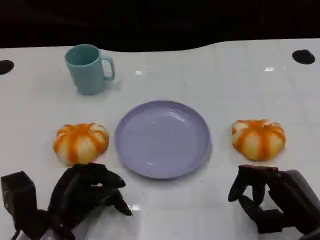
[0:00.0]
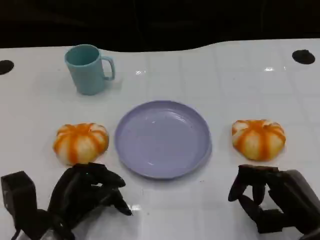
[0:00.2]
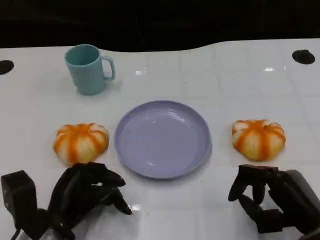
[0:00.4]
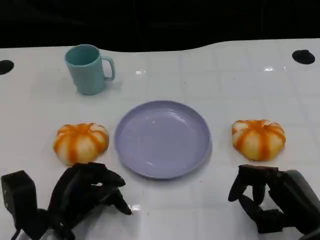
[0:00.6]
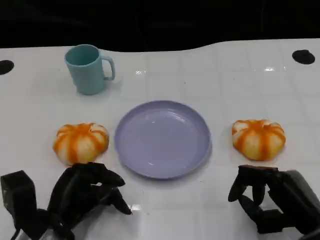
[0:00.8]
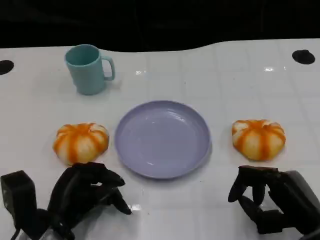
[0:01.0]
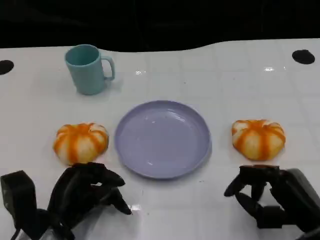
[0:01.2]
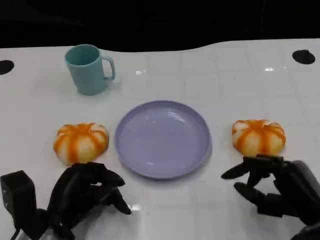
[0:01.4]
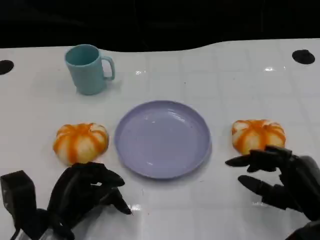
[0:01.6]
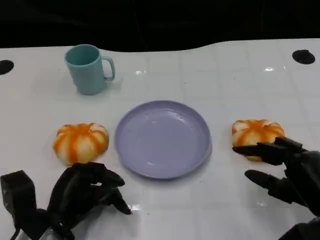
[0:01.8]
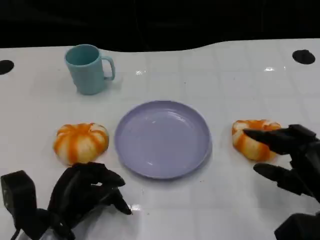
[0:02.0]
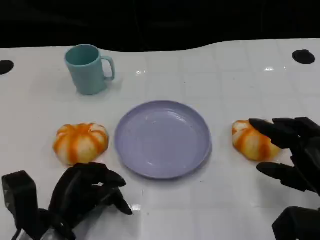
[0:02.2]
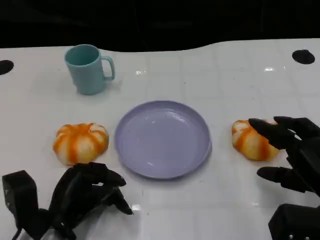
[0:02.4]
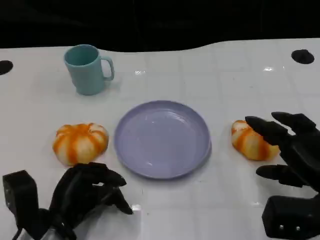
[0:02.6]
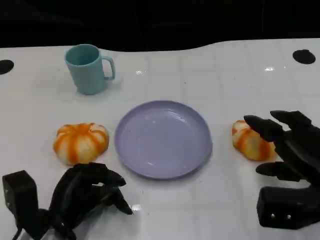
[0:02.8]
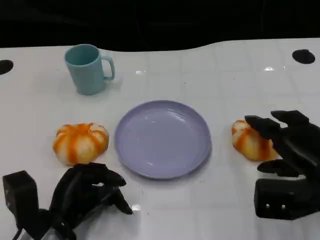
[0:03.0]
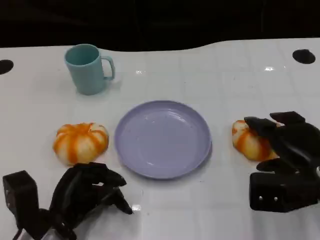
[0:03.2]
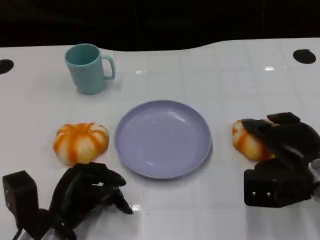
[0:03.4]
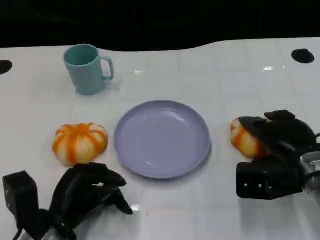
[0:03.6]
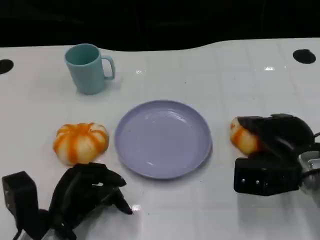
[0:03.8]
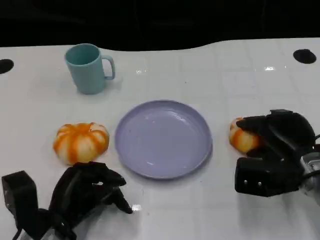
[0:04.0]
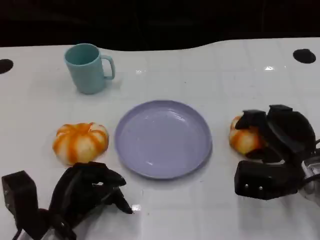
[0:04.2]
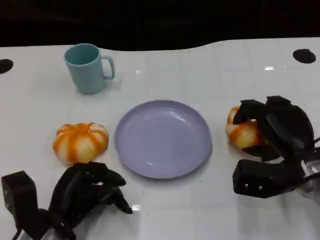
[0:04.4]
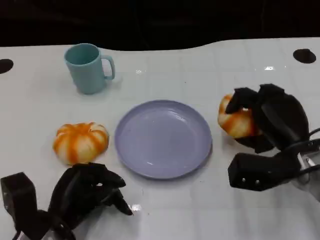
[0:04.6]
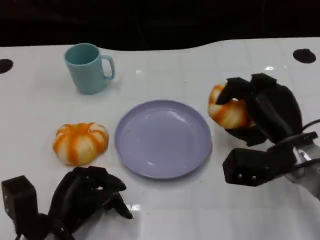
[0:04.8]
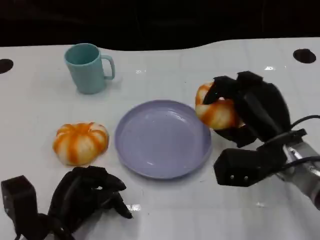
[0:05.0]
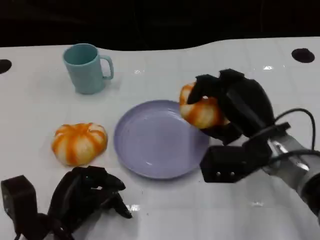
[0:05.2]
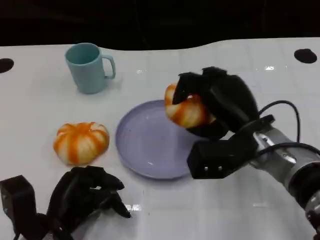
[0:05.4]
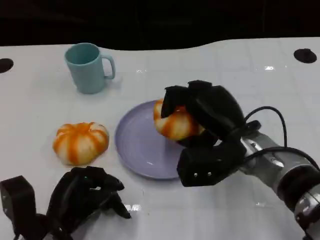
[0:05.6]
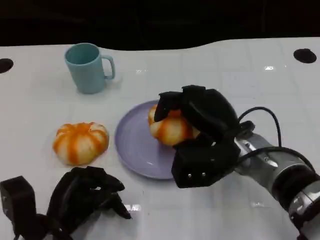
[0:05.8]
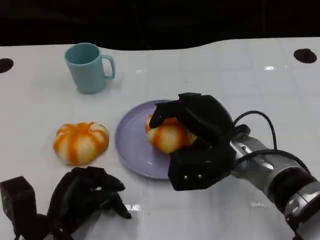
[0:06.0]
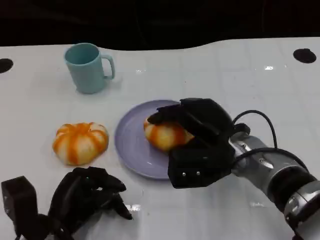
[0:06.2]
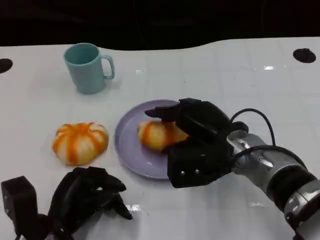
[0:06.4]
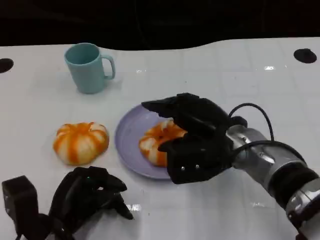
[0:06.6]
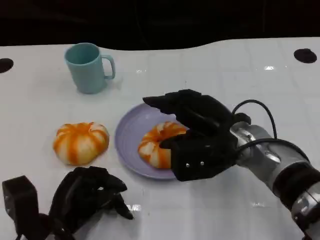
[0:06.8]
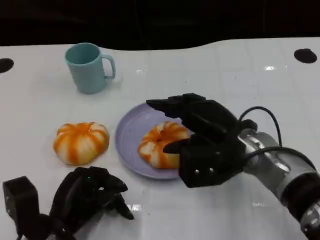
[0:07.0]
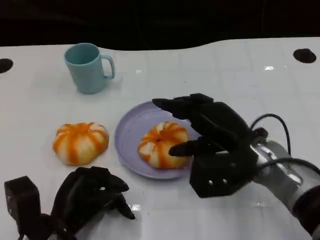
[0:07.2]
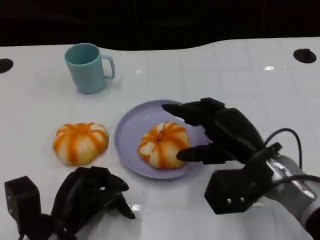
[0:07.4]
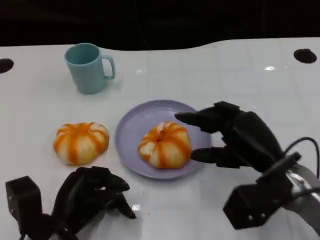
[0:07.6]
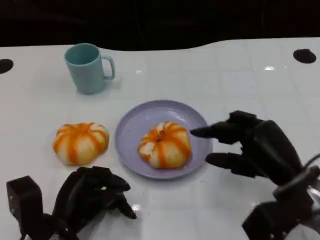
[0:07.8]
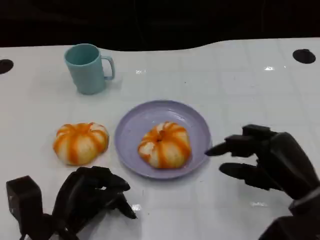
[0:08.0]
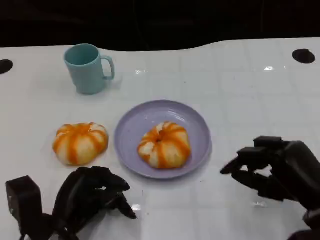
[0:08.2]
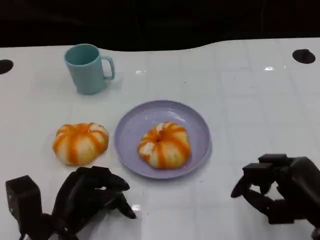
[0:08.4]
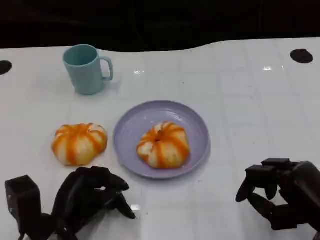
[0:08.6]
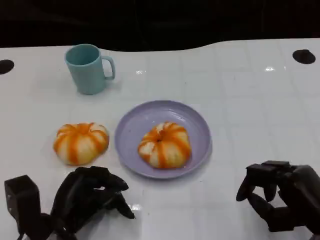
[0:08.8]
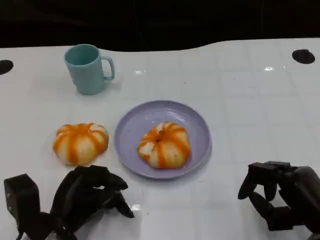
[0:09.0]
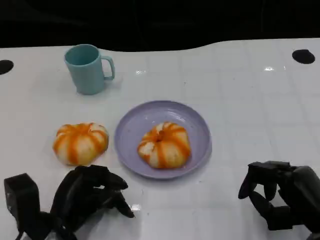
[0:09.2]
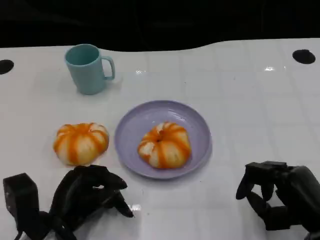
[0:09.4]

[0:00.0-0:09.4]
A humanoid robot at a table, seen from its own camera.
Task of the whole recording: Grasp the bread from the table and place it into the plate.
0:00.0 to 0:01.6: There are only small adjustments of the hands.
0:01.6 to 0:03.2: The right hand heads forward, covering some 10 cm.
0:03.2 to 0:04.8: The right hand changes place by about 5 cm.
0:04.8 to 0:06.2: The right hand goes about 10 cm to the left.
0:06.2 to 0:07.8: The right hand goes roughly 10 cm to the right and backward.
0:07.8 to 0:09.4: The right hand shifts by some 5 cm.

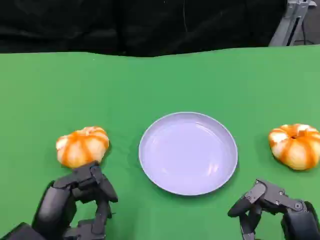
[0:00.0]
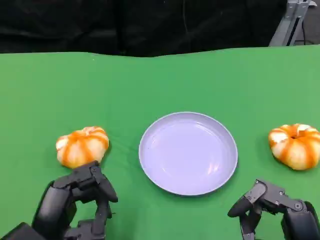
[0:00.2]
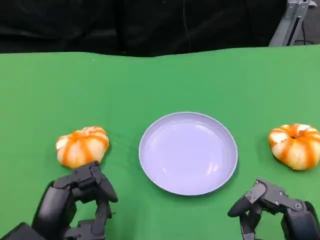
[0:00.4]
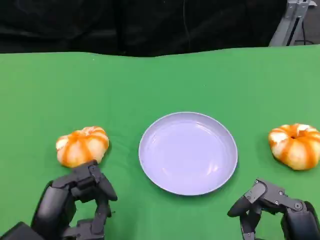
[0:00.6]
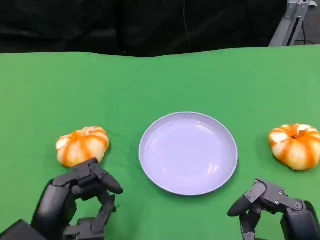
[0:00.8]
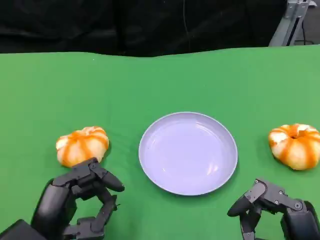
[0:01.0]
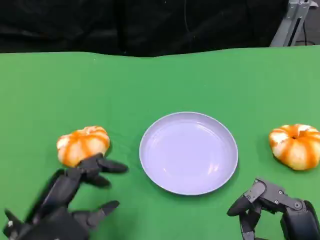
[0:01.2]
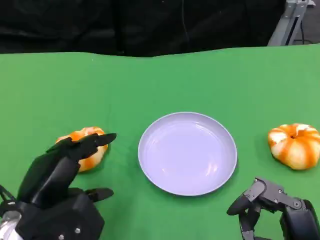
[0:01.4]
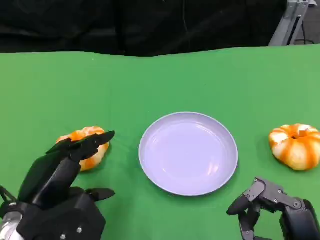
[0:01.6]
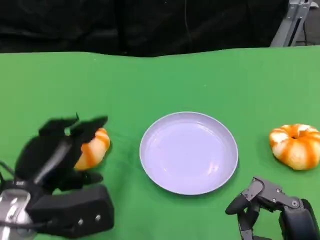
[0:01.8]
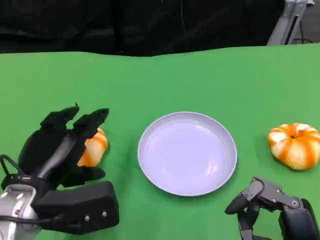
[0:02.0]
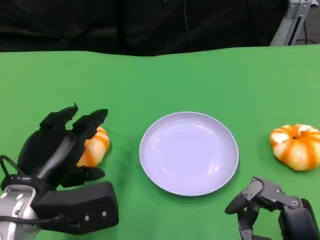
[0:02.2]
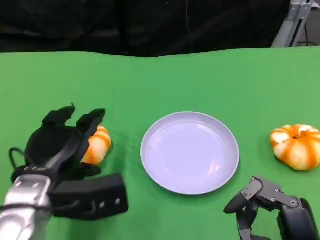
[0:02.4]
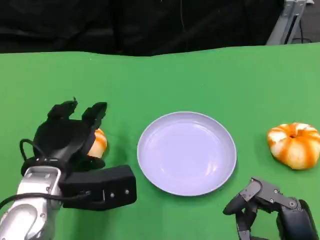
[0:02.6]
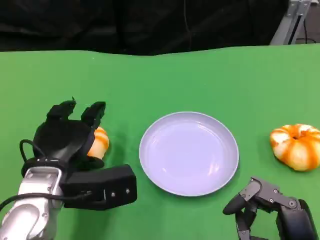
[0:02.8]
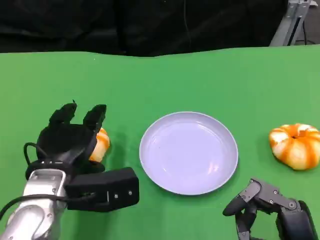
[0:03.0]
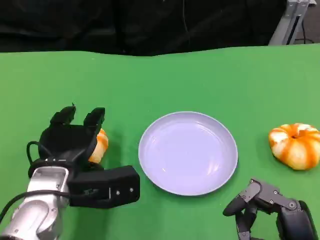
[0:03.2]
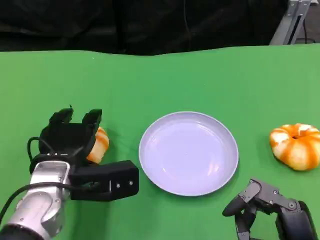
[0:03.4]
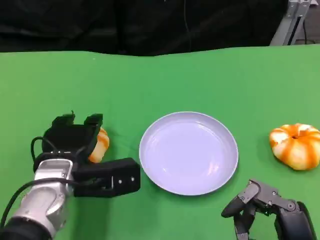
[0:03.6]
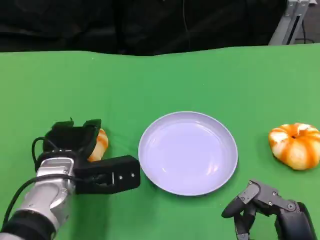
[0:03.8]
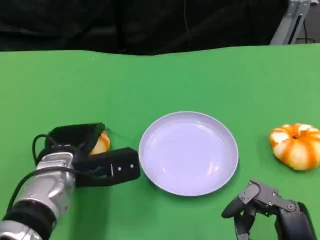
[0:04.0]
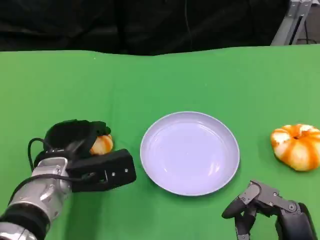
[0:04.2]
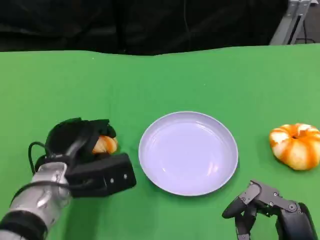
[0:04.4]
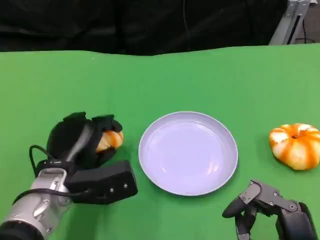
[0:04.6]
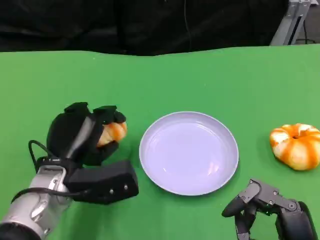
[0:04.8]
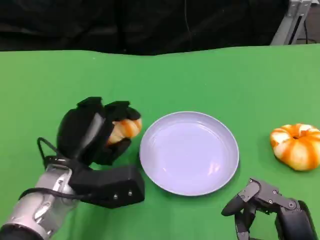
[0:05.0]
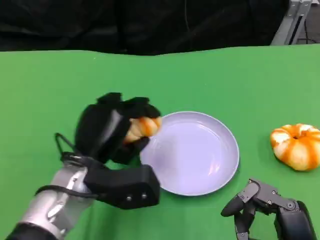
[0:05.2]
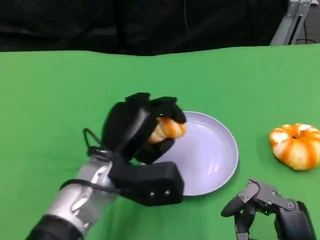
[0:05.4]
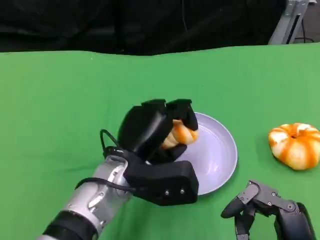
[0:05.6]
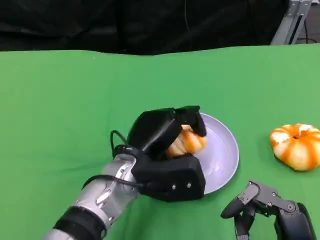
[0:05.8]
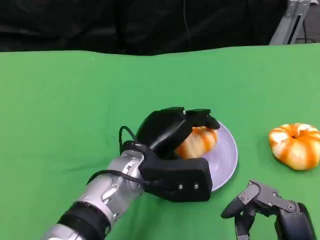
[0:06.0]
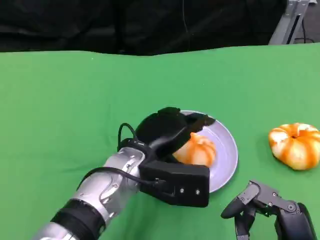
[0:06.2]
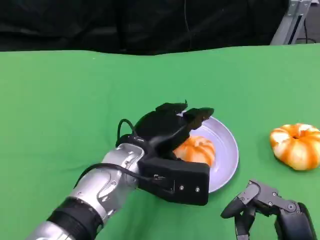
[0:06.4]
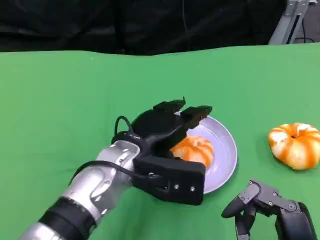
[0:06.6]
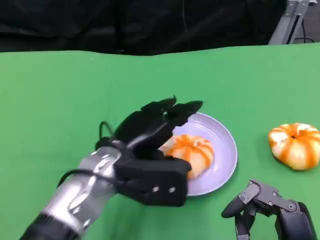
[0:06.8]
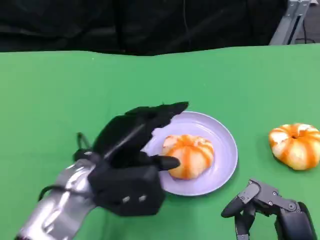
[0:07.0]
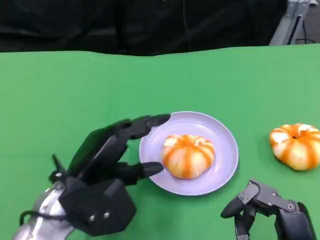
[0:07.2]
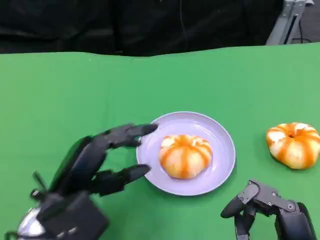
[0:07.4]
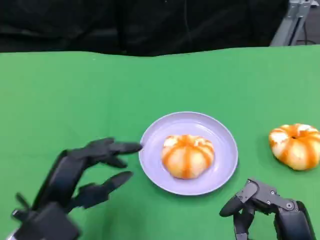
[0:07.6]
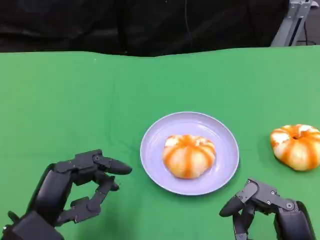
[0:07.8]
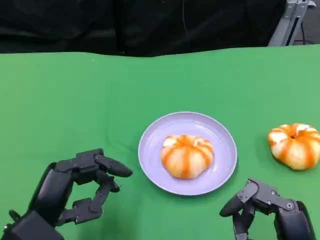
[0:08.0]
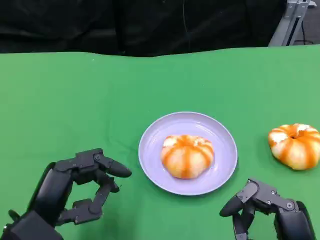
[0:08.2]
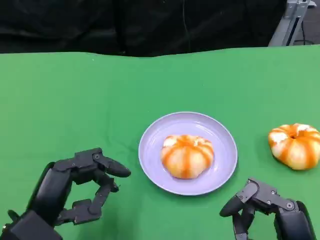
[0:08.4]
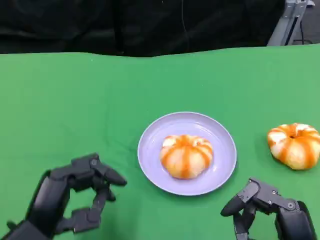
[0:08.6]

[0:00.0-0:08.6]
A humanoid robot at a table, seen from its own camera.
Task of the whole recording: Grasp the bread from the table and place it into the plate.
0:00.0 to 0:01.4: The left hand moves approximately 5 cm.
0:01.4 to 0:02.8: The left hand heads forward, covering approximately 5 cm.
0:02.8 to 0:04.4: The left hand moves approximately 5 cm.
0:04.4 to 0:05.8: The left hand goes some 10 cm to the right.
0:05.8 to 0:07.2: The left hand moves to the left, roughly 10 cm.
0:07.2 to 0:08.6: The left hand travels backward by roughly 5 cm.

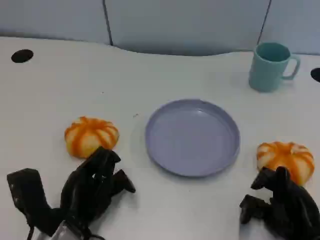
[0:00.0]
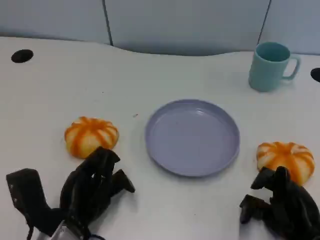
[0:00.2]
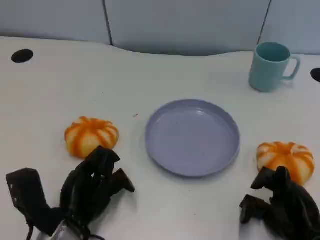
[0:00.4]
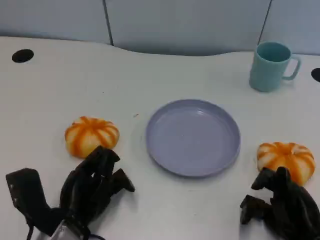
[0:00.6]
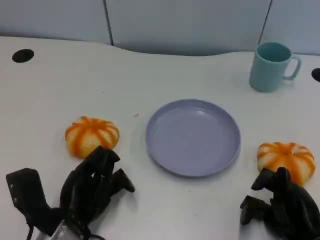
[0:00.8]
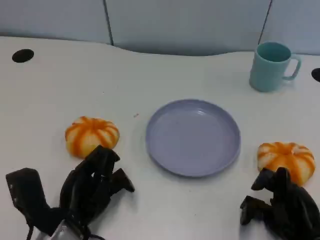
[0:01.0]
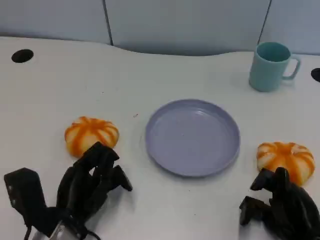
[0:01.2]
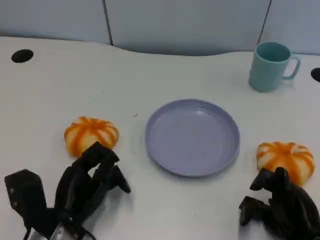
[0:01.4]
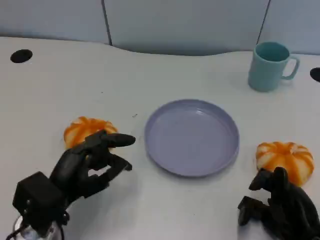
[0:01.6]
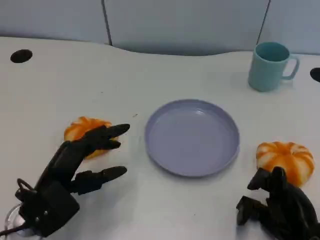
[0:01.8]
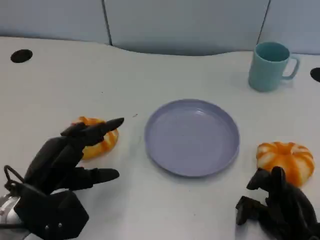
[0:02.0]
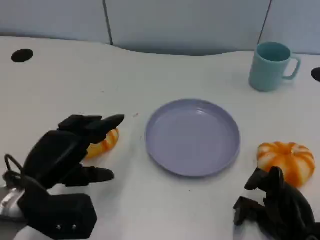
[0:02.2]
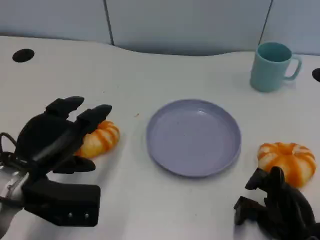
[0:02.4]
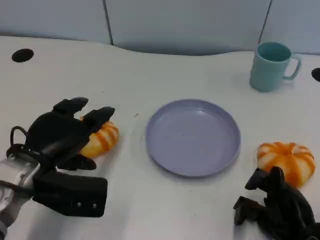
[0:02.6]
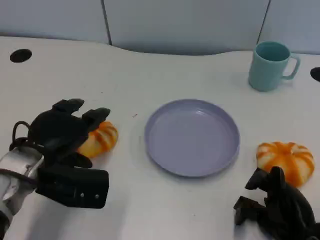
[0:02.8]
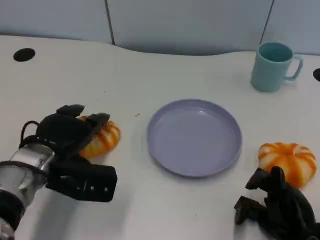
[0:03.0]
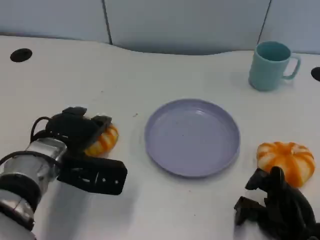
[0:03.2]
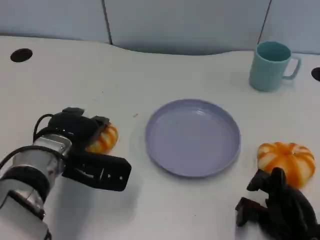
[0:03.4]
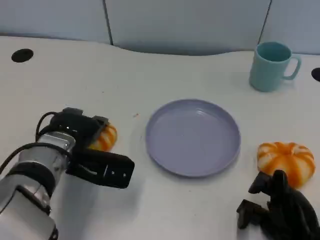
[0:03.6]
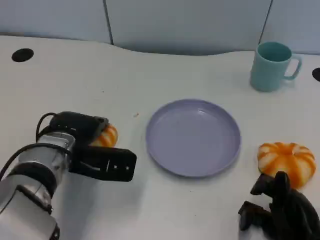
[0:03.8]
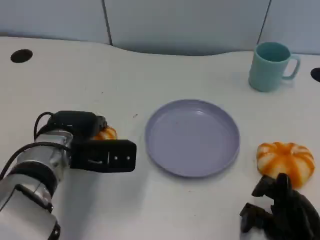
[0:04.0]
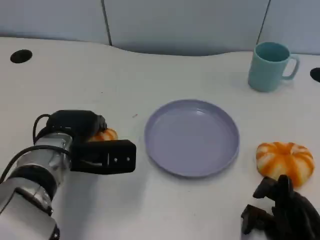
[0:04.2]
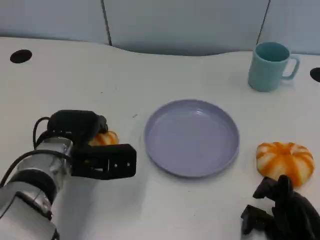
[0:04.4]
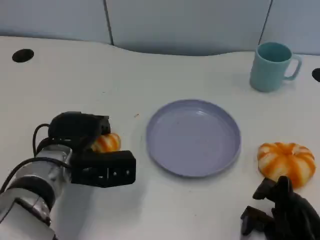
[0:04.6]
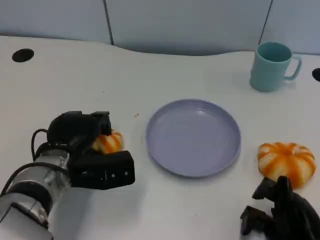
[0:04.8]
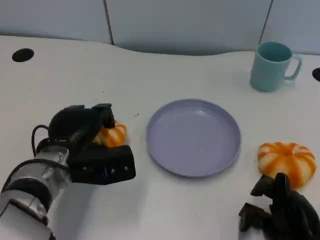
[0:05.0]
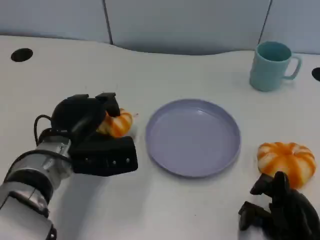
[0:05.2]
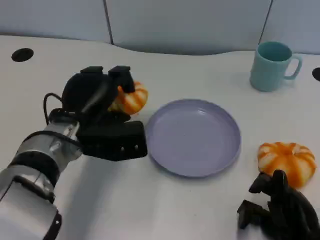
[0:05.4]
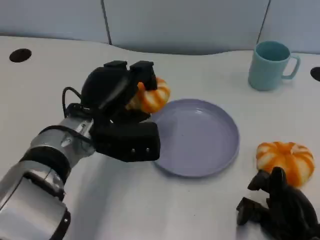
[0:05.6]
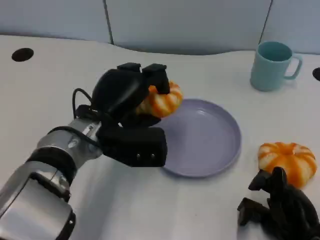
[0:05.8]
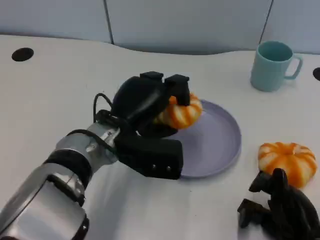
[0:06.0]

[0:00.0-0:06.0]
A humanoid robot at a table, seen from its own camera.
Task of the whole recording: Grasp the bread from the table and place it into the plate.
0:01.6 to 0:03.0: The left hand heads forward, covering roughly 5 cm.
0:03.0 to 0:04.4: The hands make only small movements.
0:04.4 to 0:06.0: The left hand heads to the right, covering approximately 10 cm.
